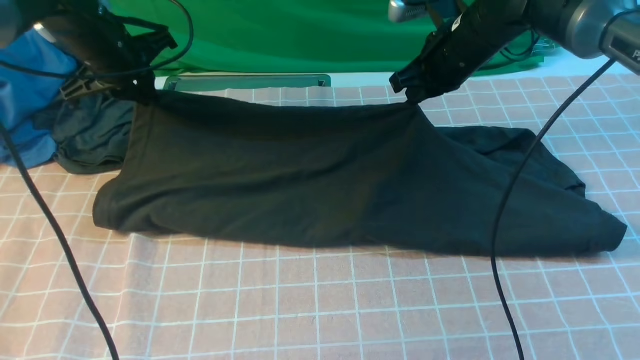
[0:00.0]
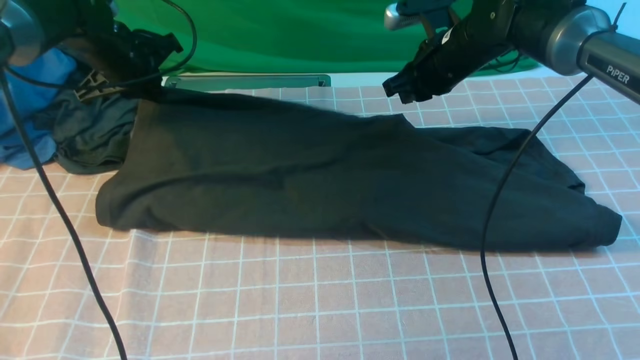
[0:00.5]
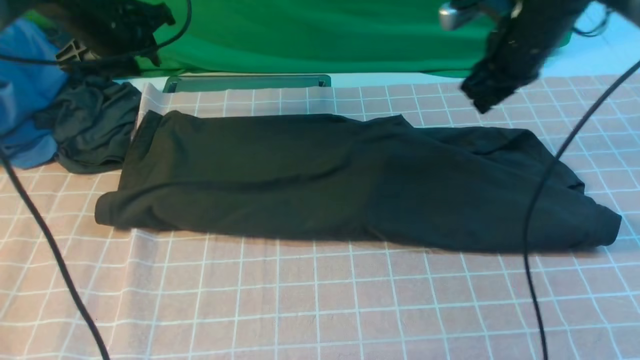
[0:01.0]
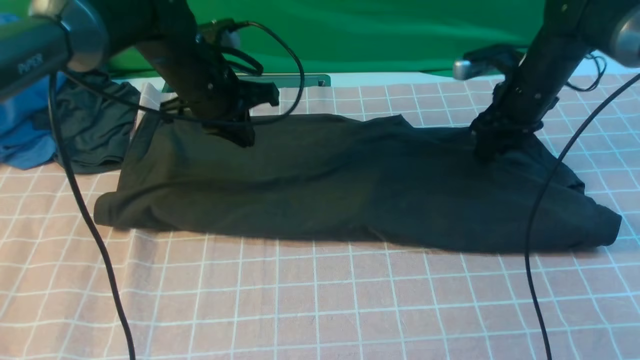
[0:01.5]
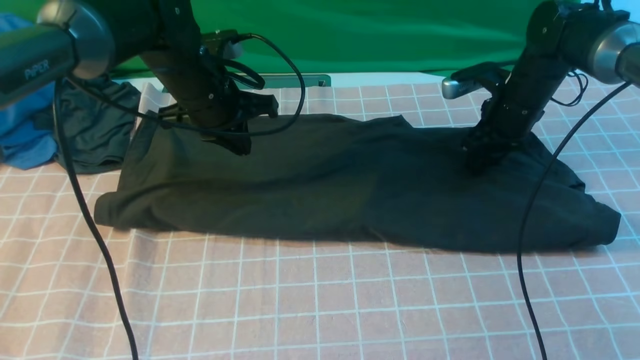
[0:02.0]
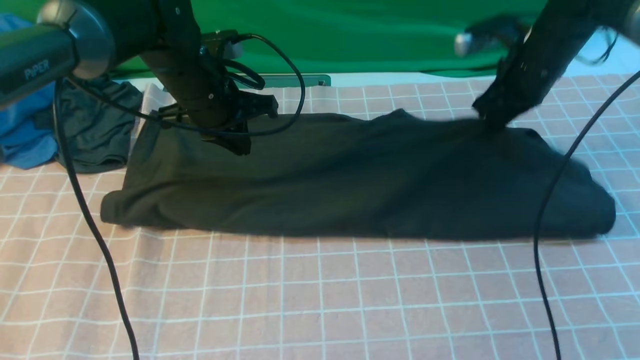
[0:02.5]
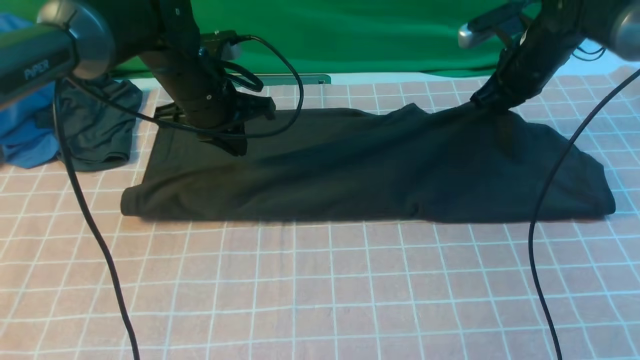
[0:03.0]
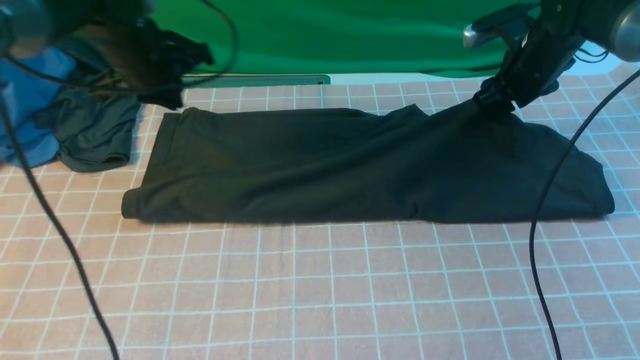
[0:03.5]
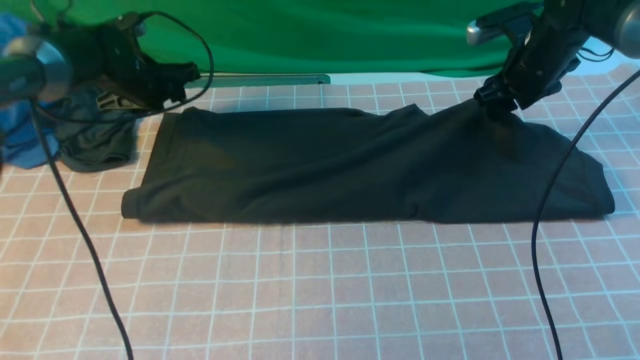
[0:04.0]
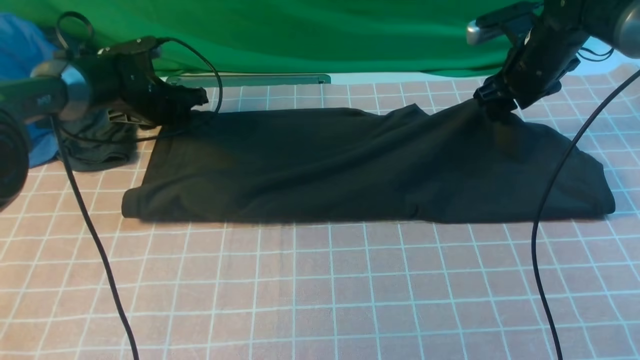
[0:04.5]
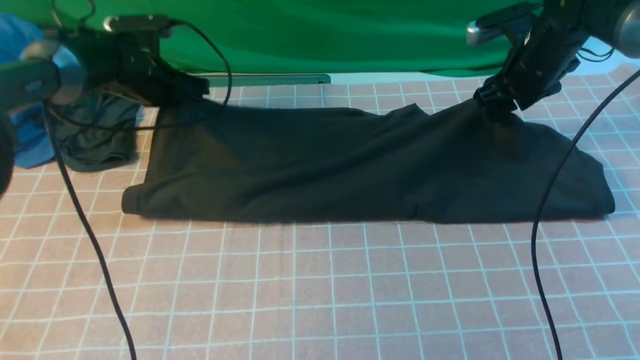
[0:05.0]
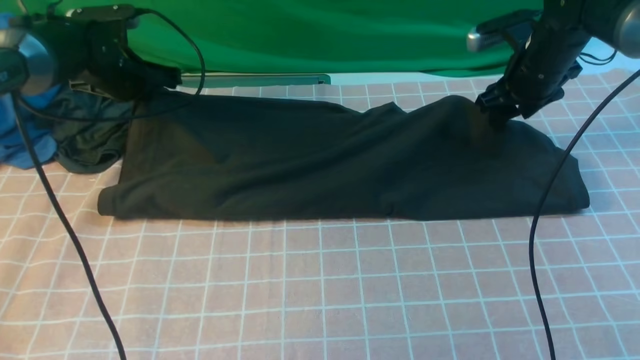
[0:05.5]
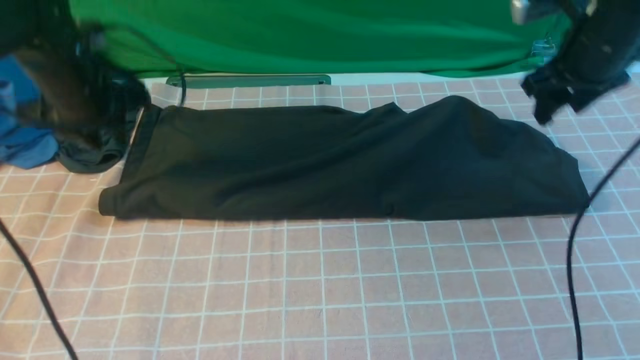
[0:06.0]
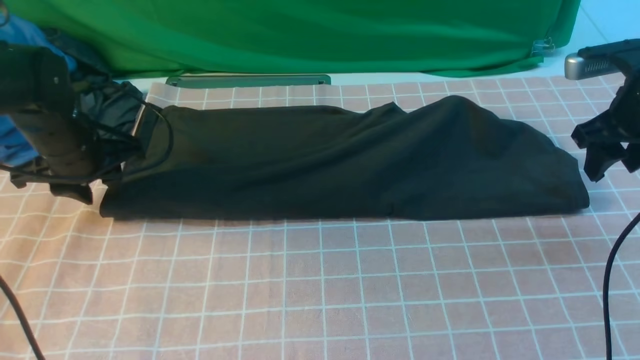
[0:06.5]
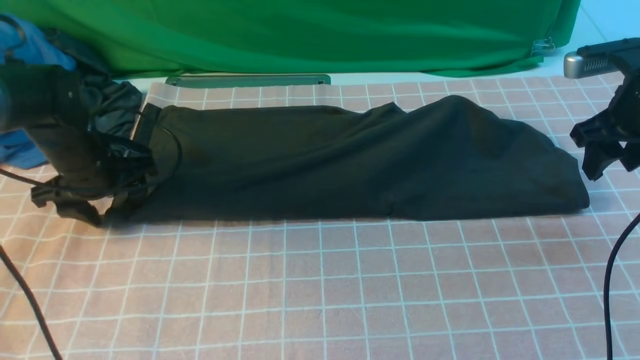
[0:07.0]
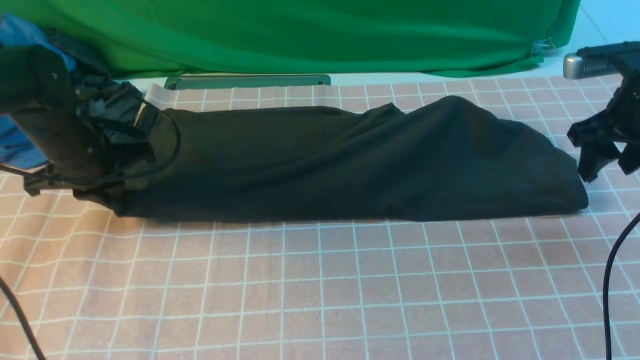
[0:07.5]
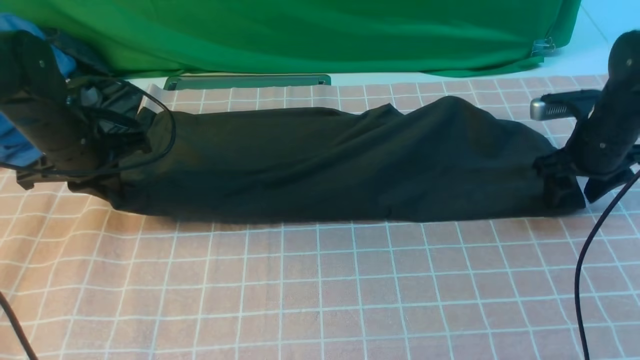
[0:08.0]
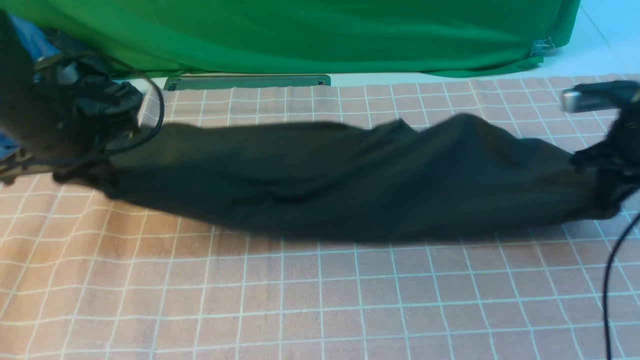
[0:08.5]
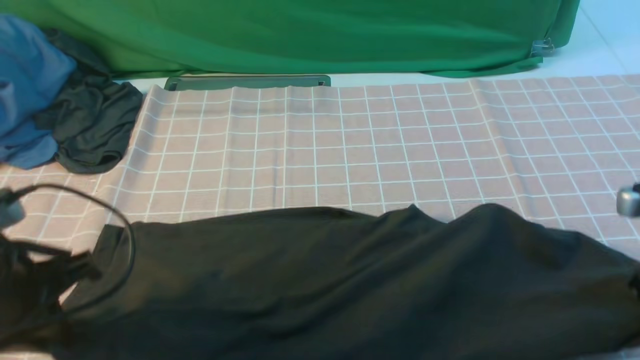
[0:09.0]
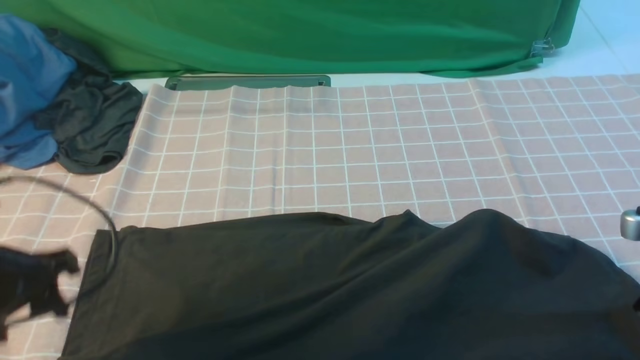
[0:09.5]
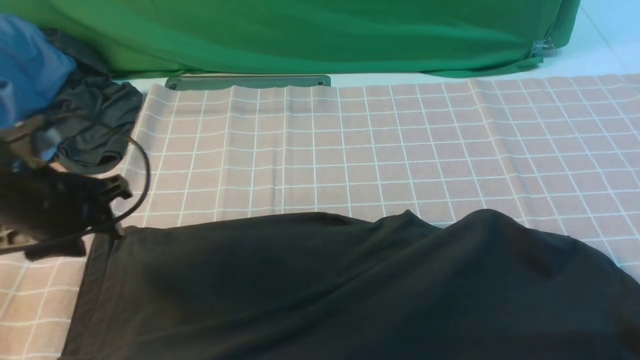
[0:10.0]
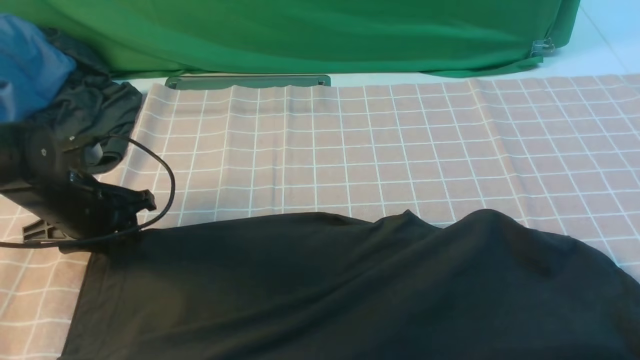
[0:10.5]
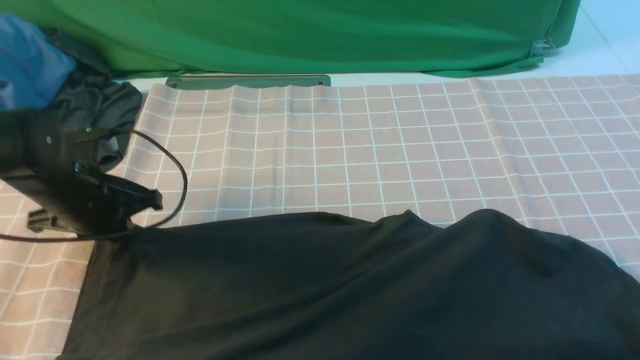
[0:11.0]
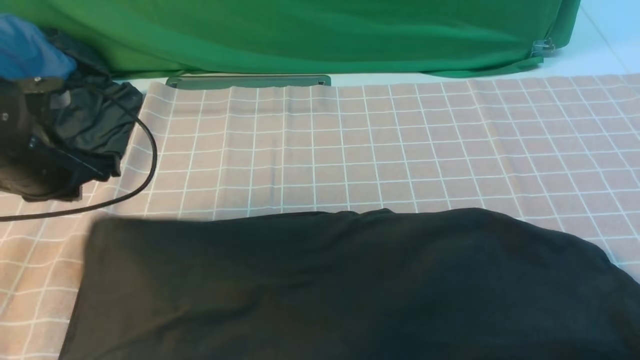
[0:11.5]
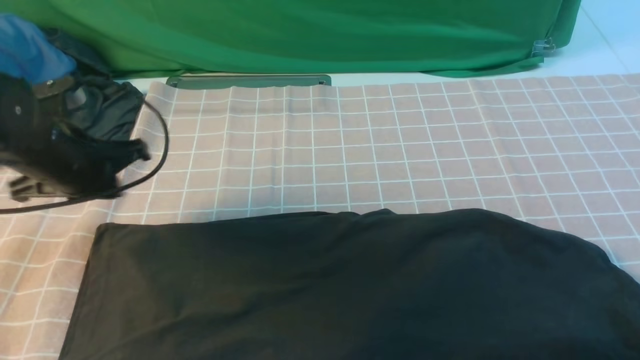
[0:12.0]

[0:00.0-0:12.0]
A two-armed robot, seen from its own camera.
Step, 0:00.0 to 0:05.5: use both arms to drag the lower edge of the fabric forward and fold it over the upper edge.
0:00.0 to 0:02.0: The left gripper travels to the right by some 10 cm, and opens, then closes once more, while the right gripper goes about 10 cm to the right and downward, and opens its fingers.
0:02.0 to 0:04.0: The left gripper travels to the left and forward by about 15 cm, and opens, while the right gripper heads upward, covering roughly 5 cm, and closes, then opens again.
0:04.0 to 0:06.0: The left gripper travels backward by approximately 5 cm, and closes, then opens again; the right gripper is displaced backward and upward by roughly 10 cm.
0:06.0 to 0:08.0: The right gripper heads downward, covering some 10 cm. Meanwhile the left gripper moves backward, about 5 cm, and closes.
0:08.0 to 0:10.0: The right gripper moves backward, about 20 cm, and closes up. Meanwhile the left gripper travels backward by about 10 cm, and opens.
0:10.0 to 0:12.0: The left gripper goes approximately 5 cm forward, and closes.

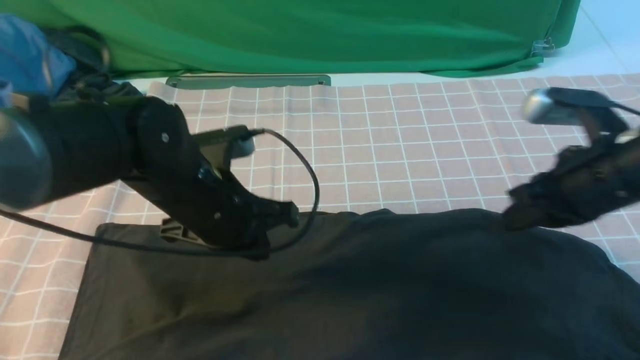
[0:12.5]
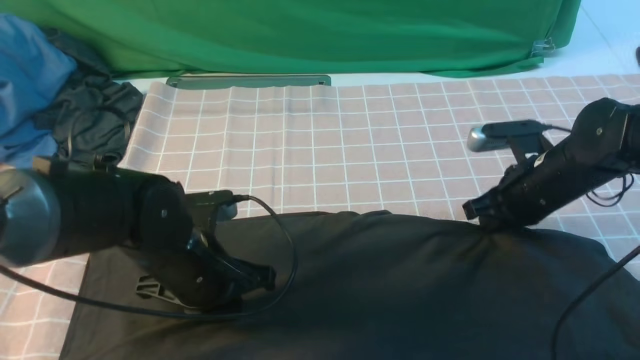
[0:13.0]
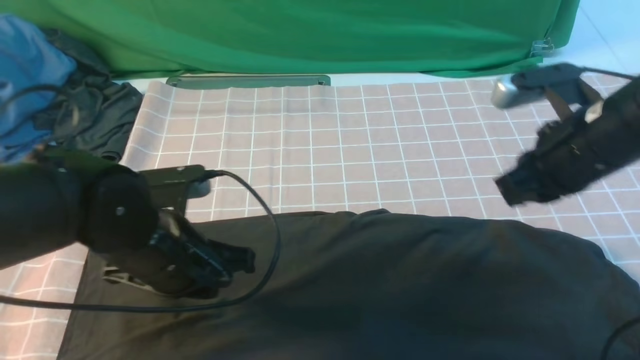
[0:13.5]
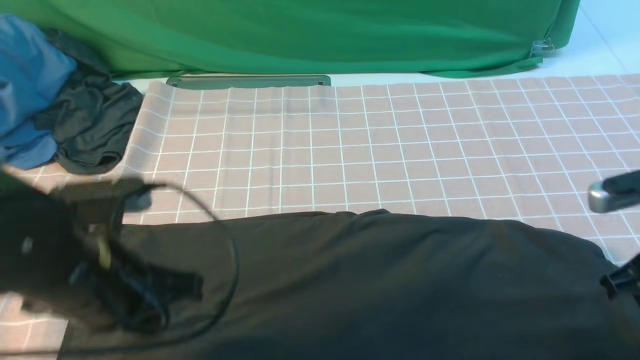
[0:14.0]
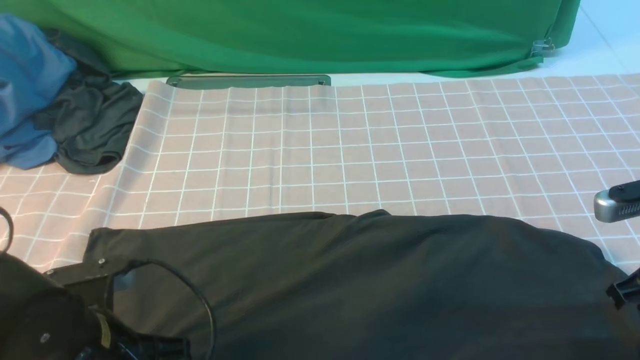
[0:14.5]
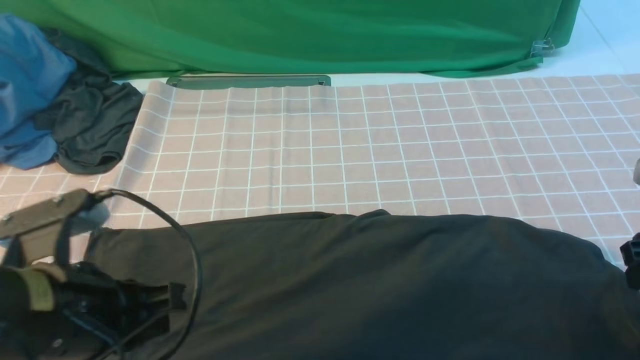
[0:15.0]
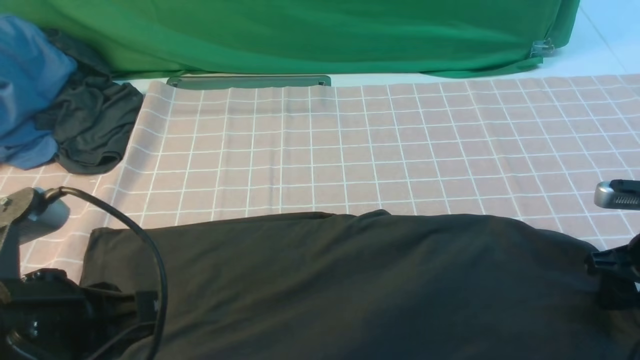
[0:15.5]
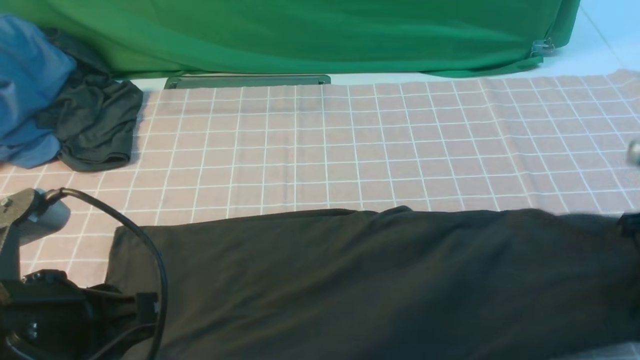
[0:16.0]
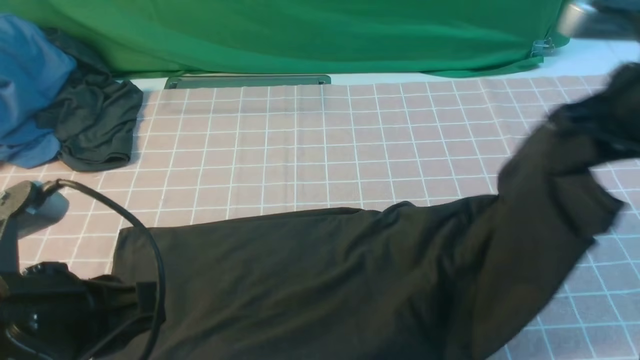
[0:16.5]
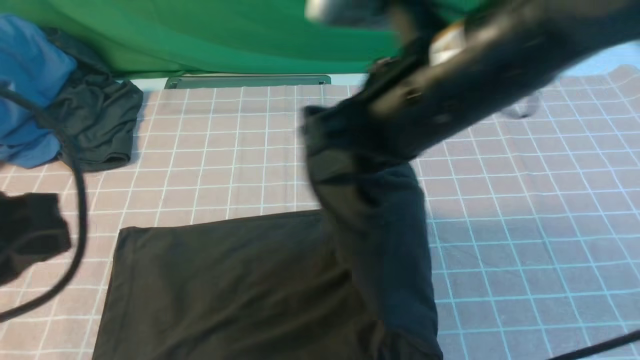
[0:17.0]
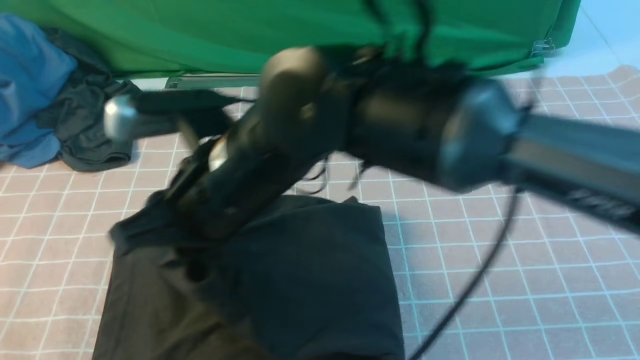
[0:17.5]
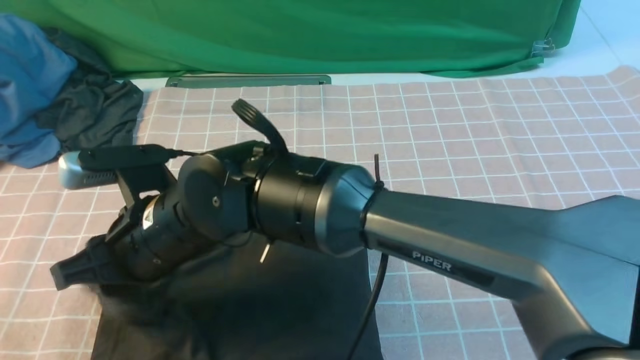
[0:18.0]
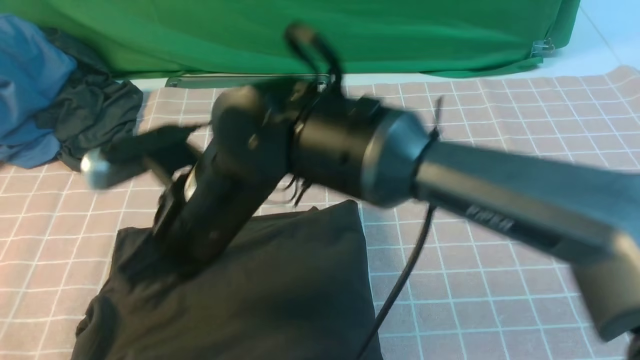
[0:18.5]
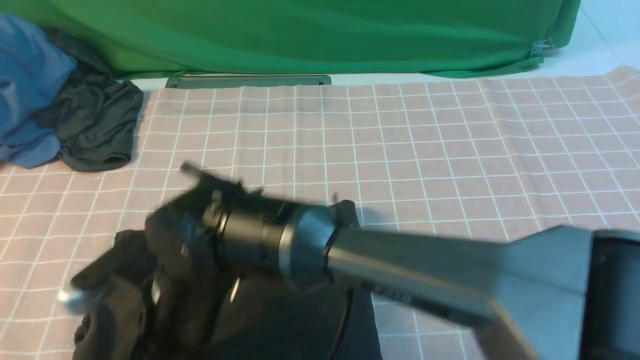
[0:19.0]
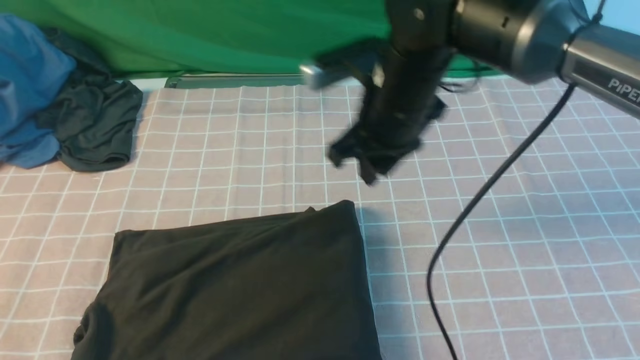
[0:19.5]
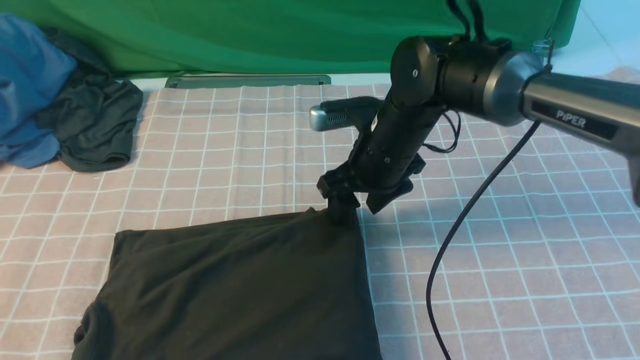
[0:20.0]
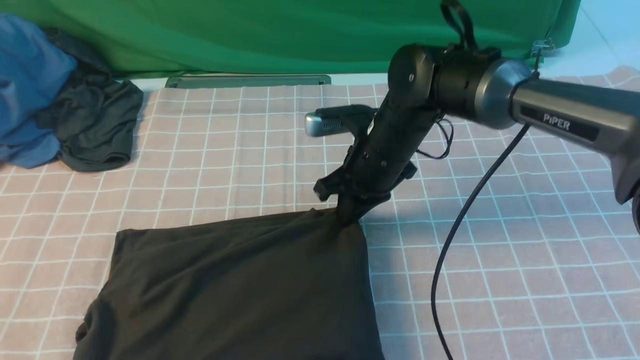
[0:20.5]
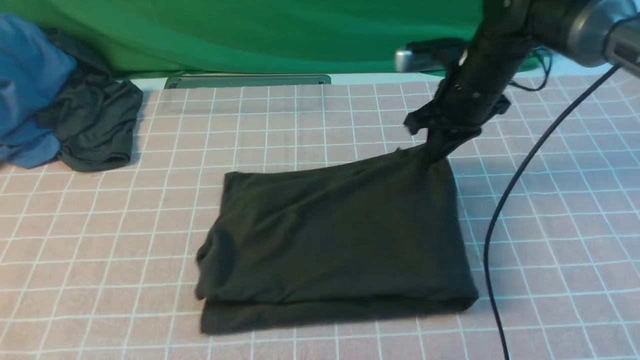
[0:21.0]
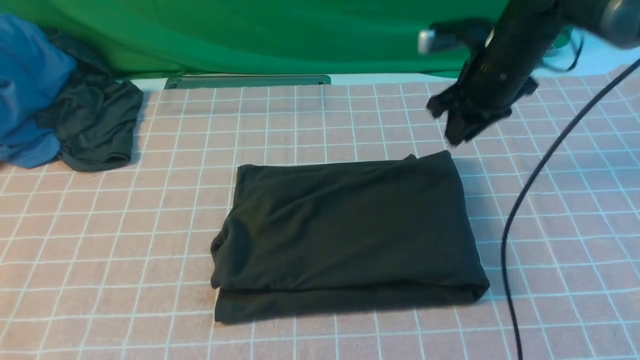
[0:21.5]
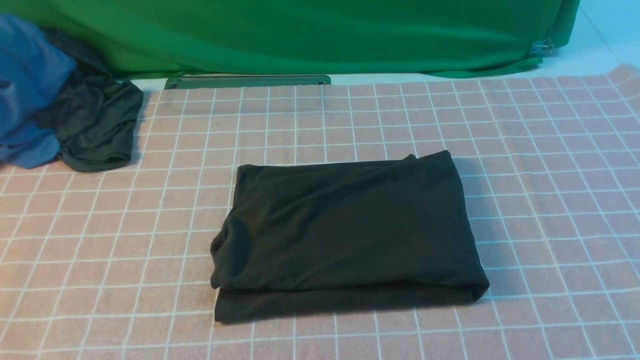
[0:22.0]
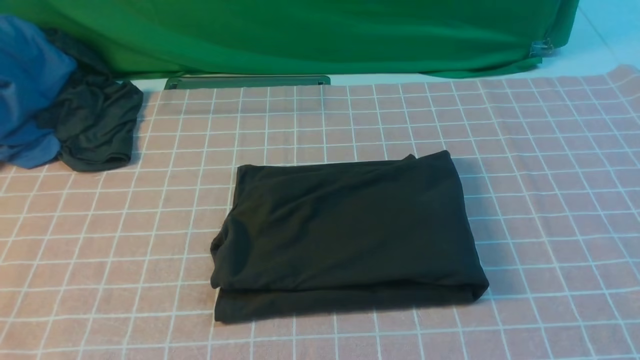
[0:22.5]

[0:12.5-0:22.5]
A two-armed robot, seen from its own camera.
Step, 0:12.5 to 0:15.5: use the right arm to clamp the right edge of the fabric.
Step, 0:16.0 to 0:18.0: use the right arm to drag the right edge of the fabric to the left and folds it over the left edge.
0:12.5 to 0:14.5: The right gripper moves some 10 cm forward and comes back, while the left gripper shifts about 15 cm backward.
0:14.5 to 0:16.5: The right gripper heads upward and forward, covering some 15 cm, and opens and closes again; the left gripper shifts approximately 10 cm upward.
0:16.5 to 0:18.5: The right gripper is displaced to the left by about 35 cm. The left gripper travels upward, backward and to the left by some 10 cm.
0:18.5 to 0:20.5: The right gripper is displaced to the right and forward by about 20 cm, and opens, then closes again.
0:20.5 to 0:22.5: The right gripper shifts roughly 50 cm backward, upward and to the right.
